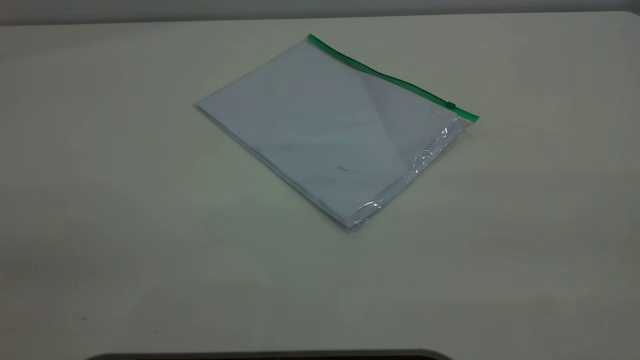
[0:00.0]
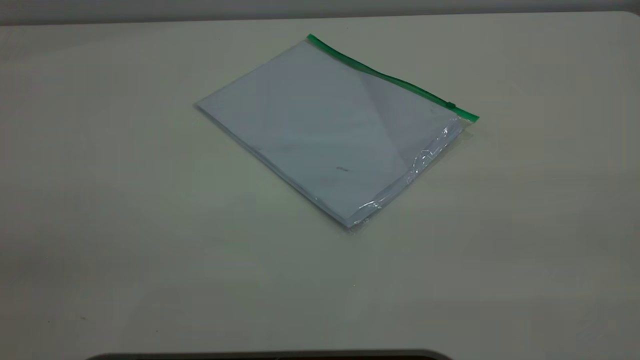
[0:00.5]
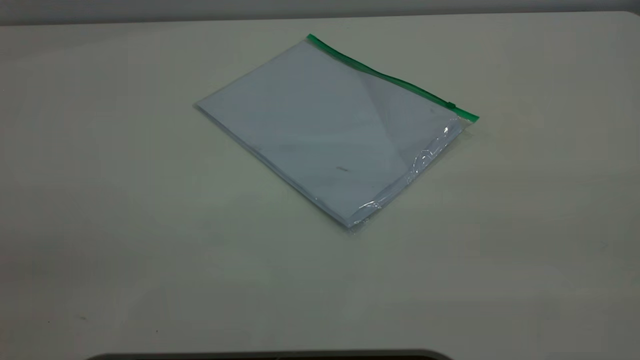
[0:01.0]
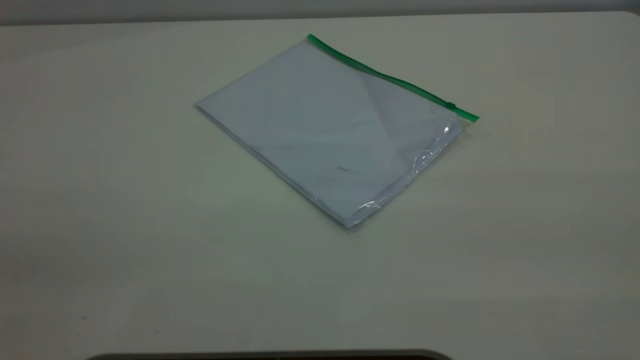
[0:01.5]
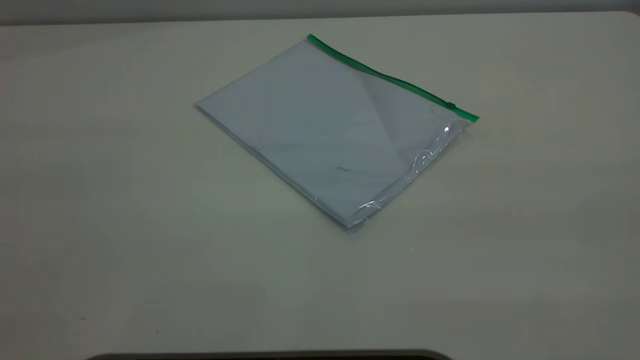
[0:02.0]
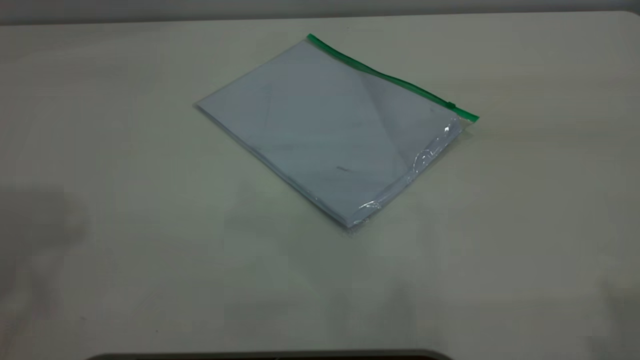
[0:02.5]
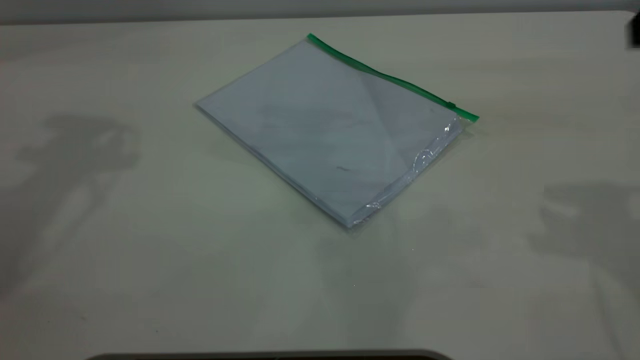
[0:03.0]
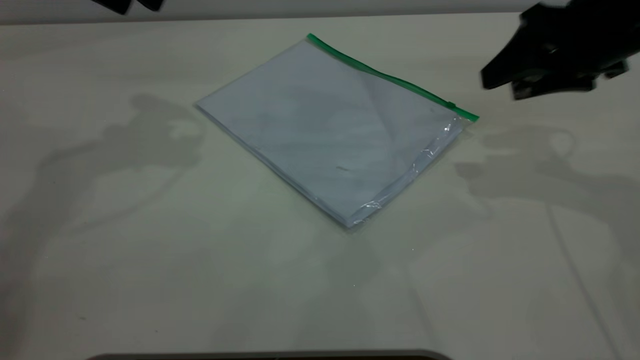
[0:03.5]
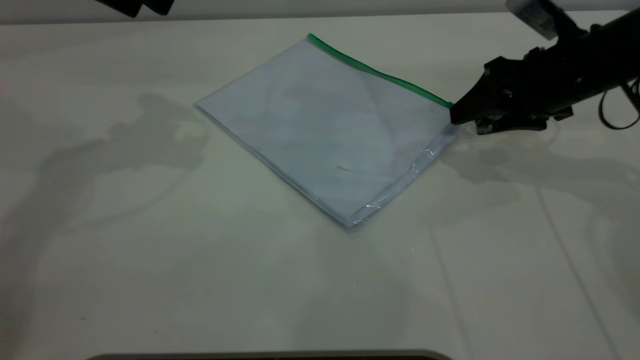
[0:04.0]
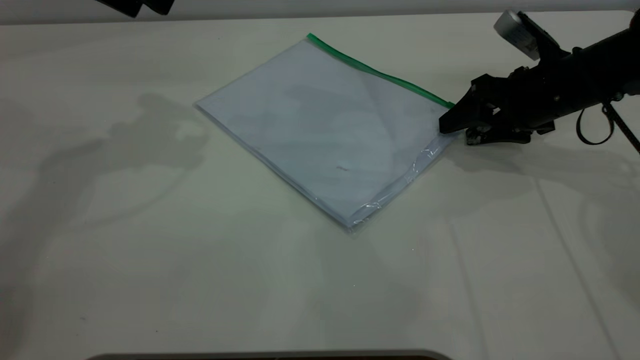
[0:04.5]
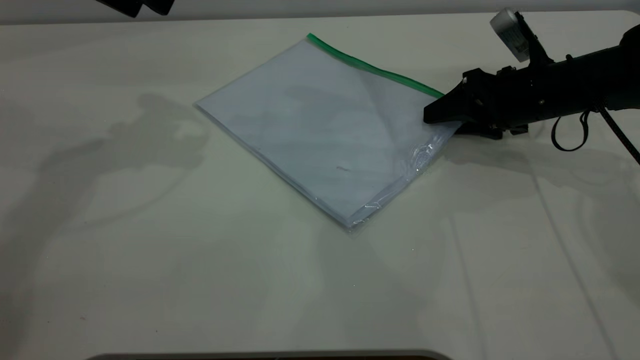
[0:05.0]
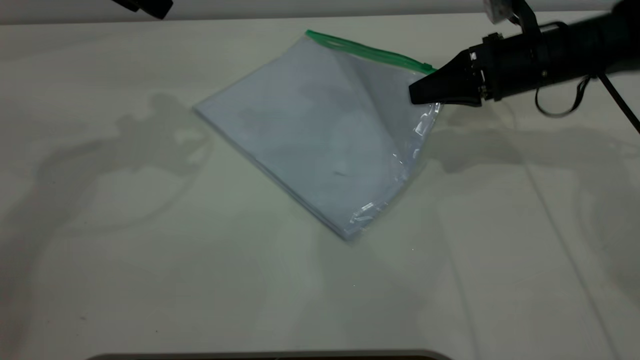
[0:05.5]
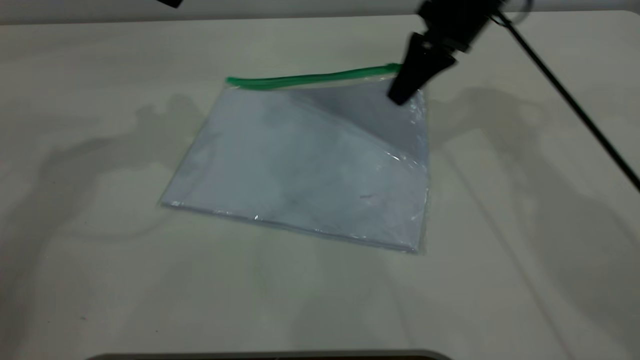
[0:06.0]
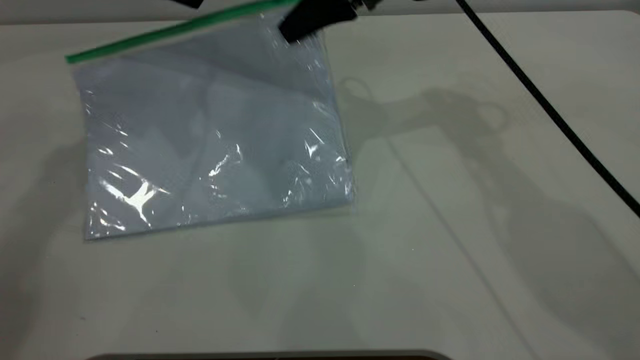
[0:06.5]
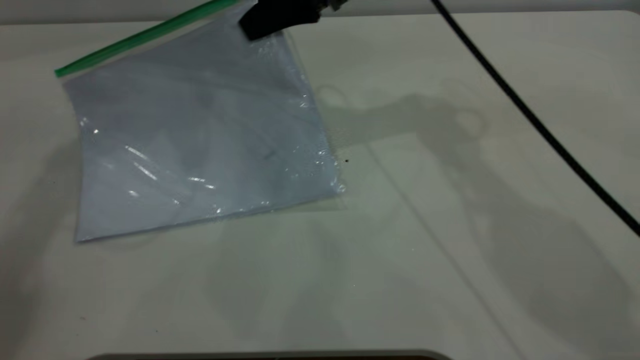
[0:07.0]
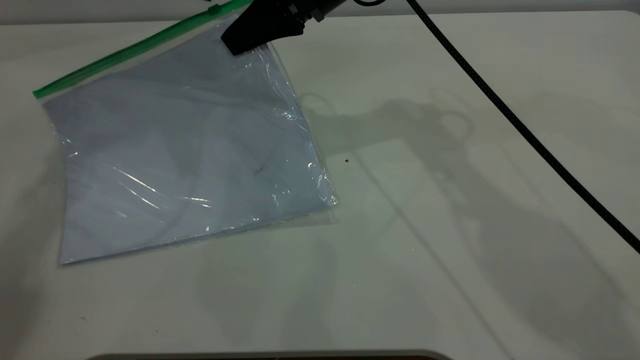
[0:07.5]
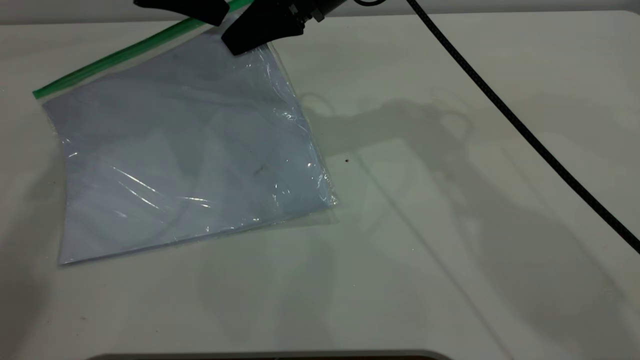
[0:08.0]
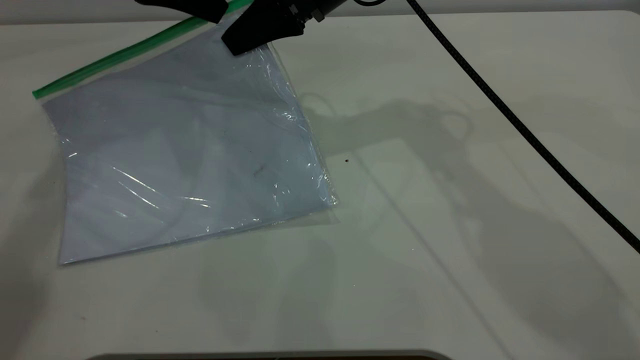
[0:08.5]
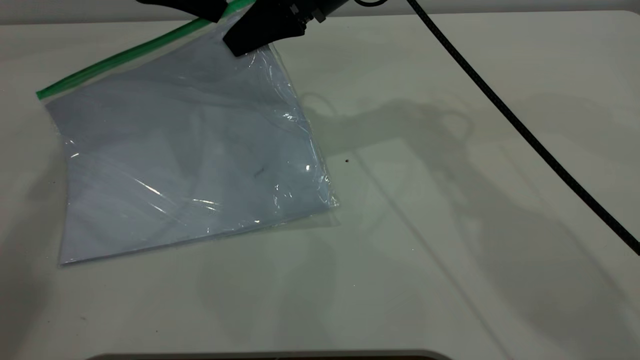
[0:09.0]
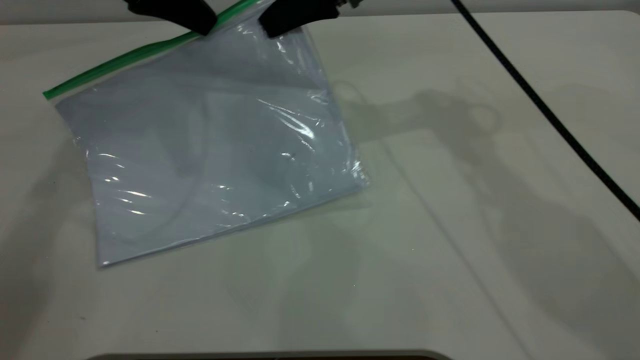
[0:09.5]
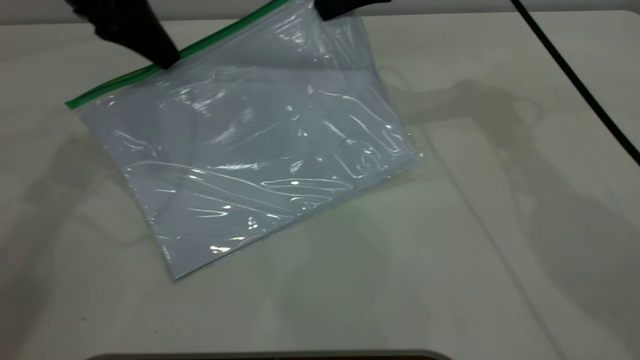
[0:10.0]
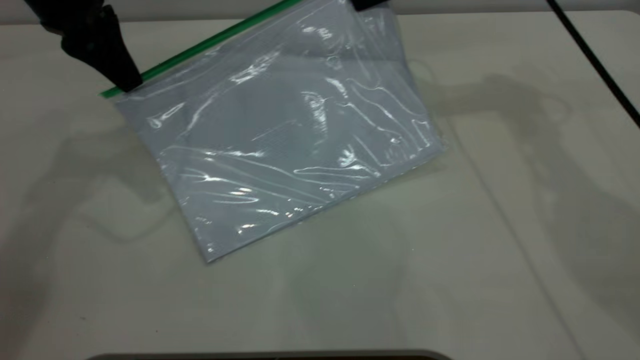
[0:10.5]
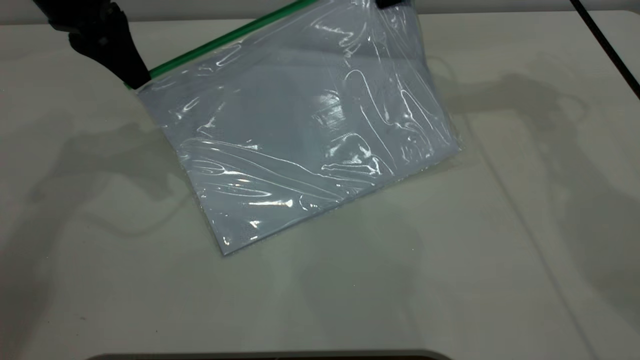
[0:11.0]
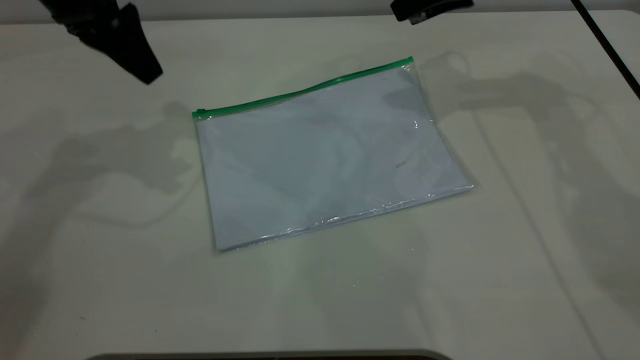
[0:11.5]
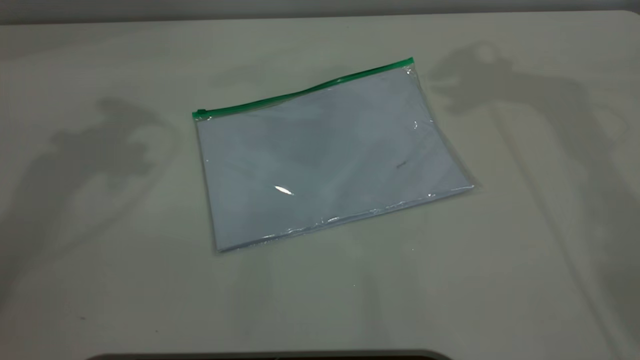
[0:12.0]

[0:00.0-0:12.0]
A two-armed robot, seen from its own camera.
Step, 0:00.0 to 0:05.0: Pick up the transparent plastic bag with the right gripper.
Step, 0:05.5 to 0:11.0: Pulling up the zipper on the transparent plastic bag with the left gripper to close it.
0:02.0 to 0:04.0: The right gripper travels forward and downward by about 50 cm.
0:04.0 to 0:06.0: The right gripper shifts about 15 cm to the left, forward and upward, and closes up.
0:06.0 to 0:08.0: The right gripper travels to the left by roughly 10 cm.
0:08.0 to 0:10.0: The right gripper moves to the right, about 10 cm, while the left gripper closes its fingers.
0:10.0 to 0:12.0: The left gripper is displaced upward by some 15 cm, and opens; the right gripper travels upward and to the right by some 20 cm, and opens up.
